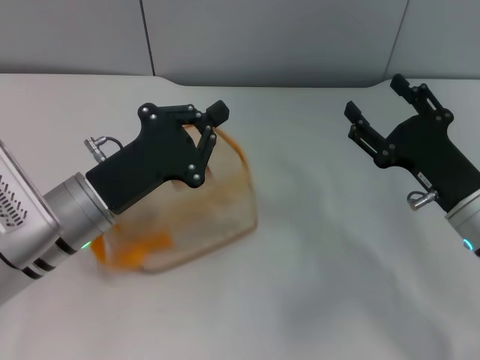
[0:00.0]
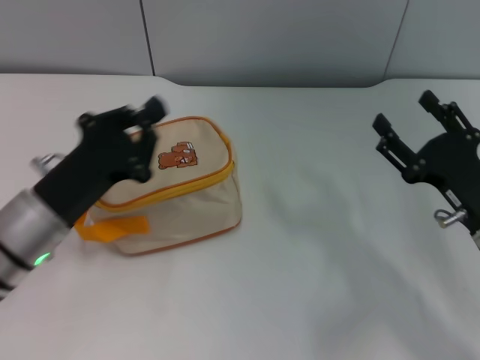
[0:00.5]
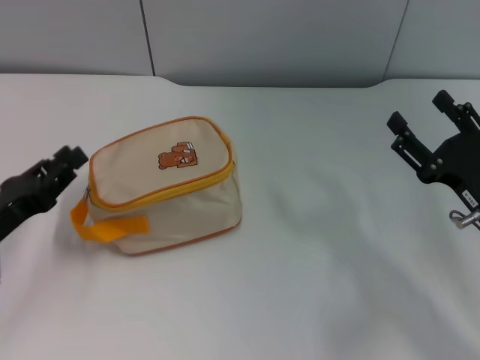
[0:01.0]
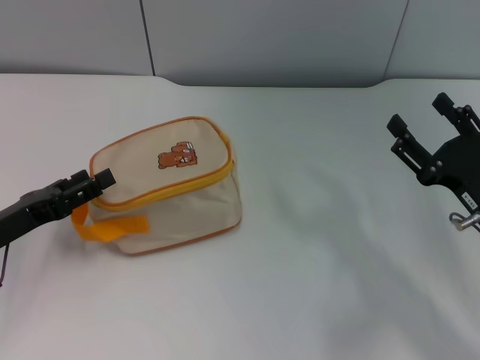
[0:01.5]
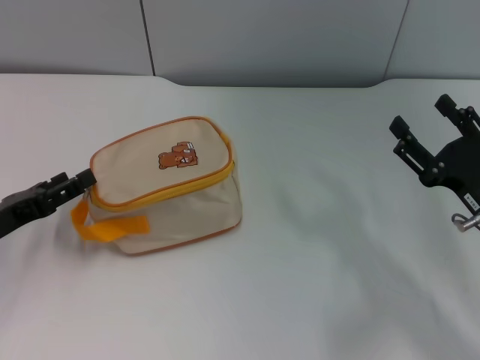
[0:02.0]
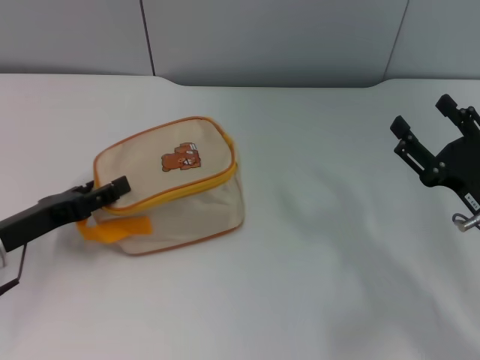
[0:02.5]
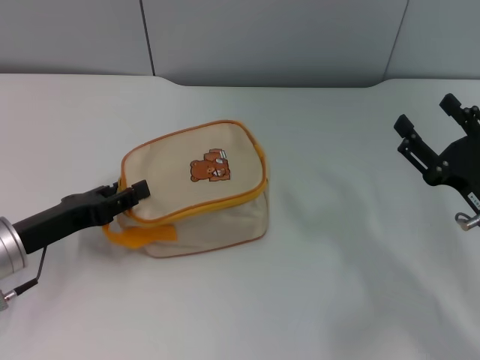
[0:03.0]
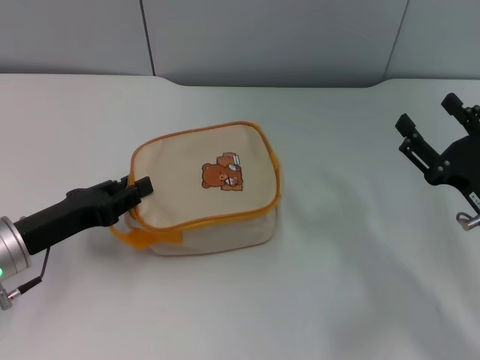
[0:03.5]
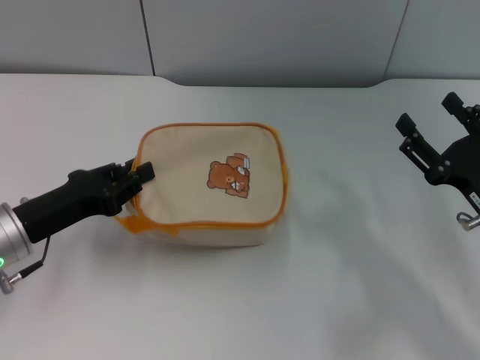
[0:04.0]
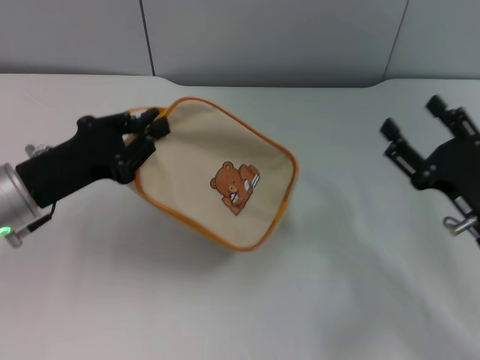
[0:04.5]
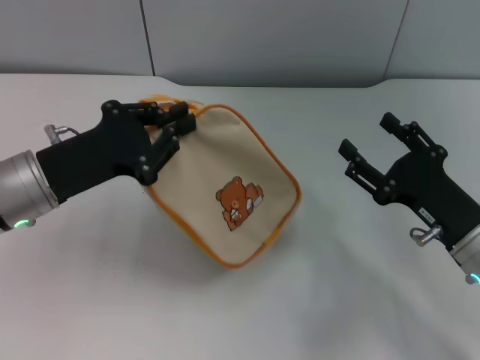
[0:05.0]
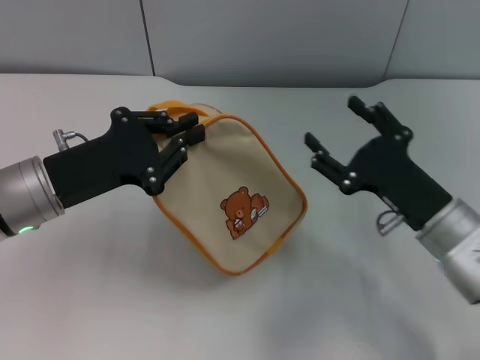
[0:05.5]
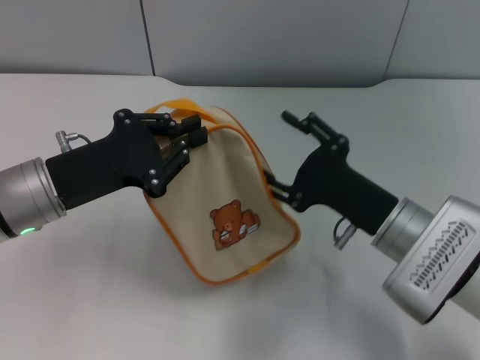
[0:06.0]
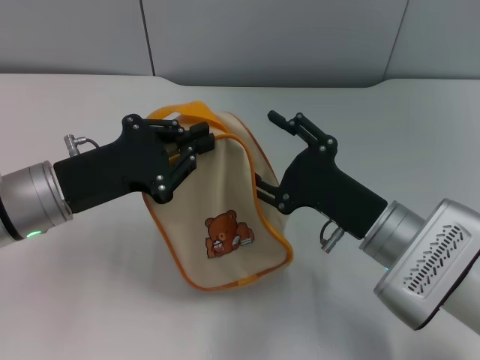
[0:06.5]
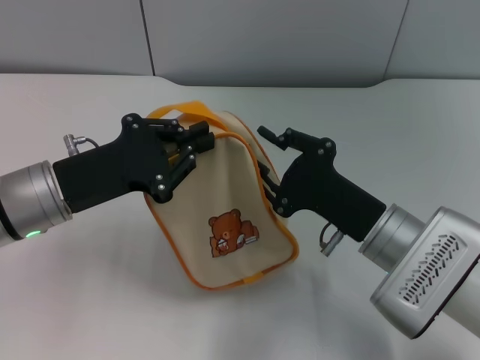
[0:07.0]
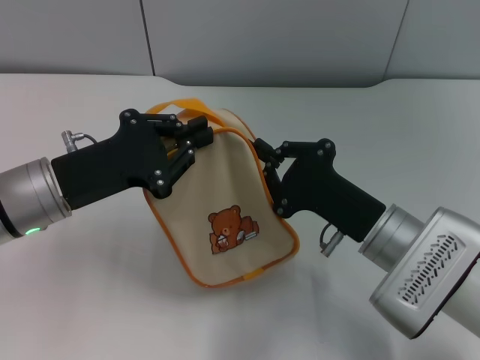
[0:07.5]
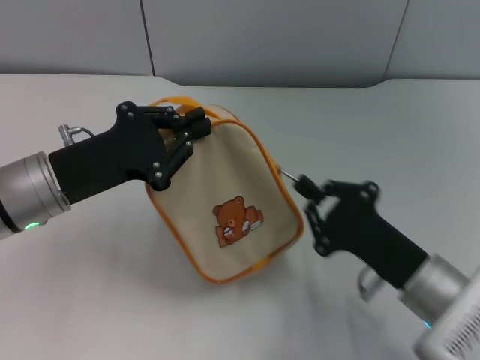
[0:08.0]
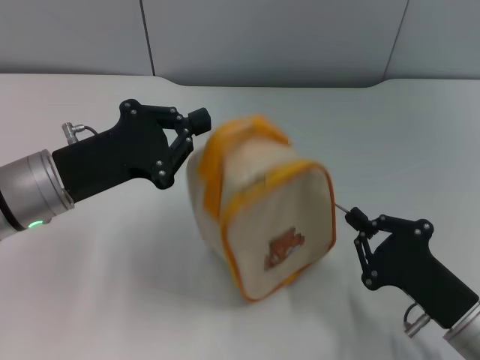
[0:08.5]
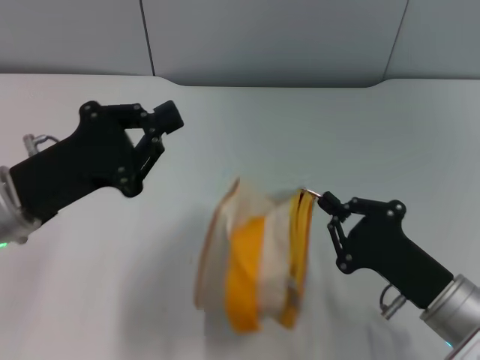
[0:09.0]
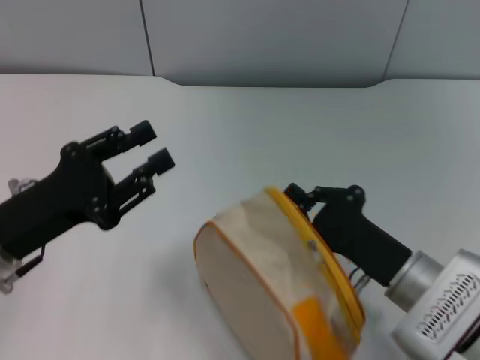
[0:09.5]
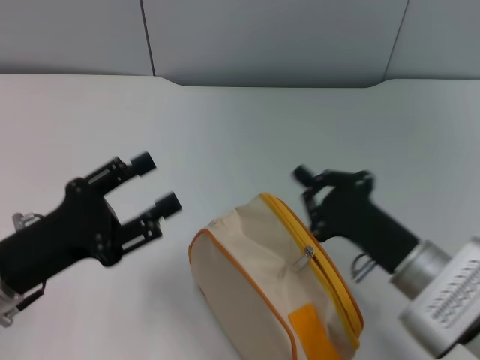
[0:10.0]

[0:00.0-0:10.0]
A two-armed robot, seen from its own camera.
Step, 0:00.0 to 0:04.5: Pick up the bag with left gripper.
Step, 0:05.0 to 0:09.0: Unzip the zipper of bag with right gripper.
0:00.0 to 0:02.0: The left gripper shifts approximately 15 cm to the left, and opens its fingers.
0:02.0 to 0:04.0: The left gripper heads to the right, covering roughly 5 cm, and closes up.
0:04.0 to 0:06.0: The left gripper moves some 5 cm. Meanwhile the right gripper is displaced to the left by roughly 10 cm.
0:06.0 to 0:08.0: The right gripper shifts about 5 cm backward, and closes.
0:08.0 to 0:10.0: The left gripper is displaced backward by some 10 cm, and opens up.

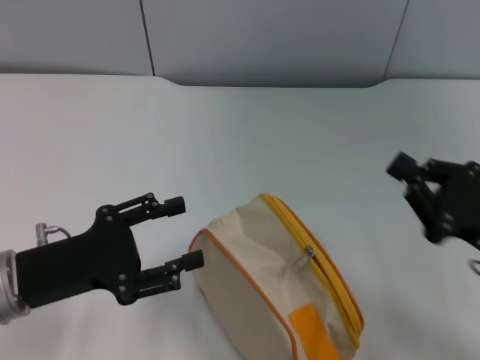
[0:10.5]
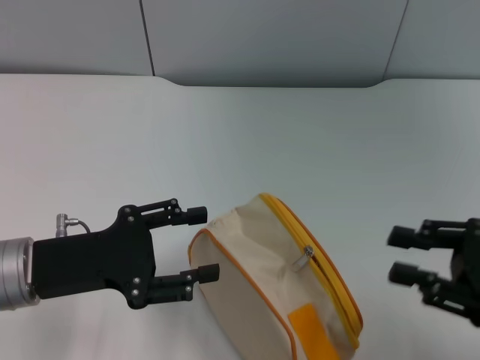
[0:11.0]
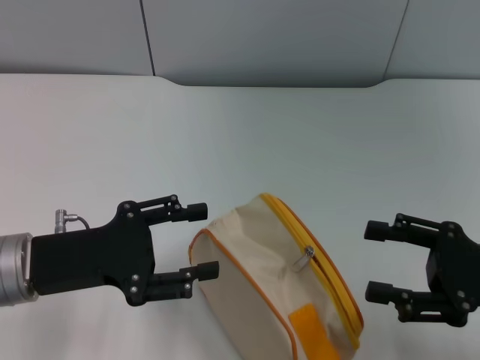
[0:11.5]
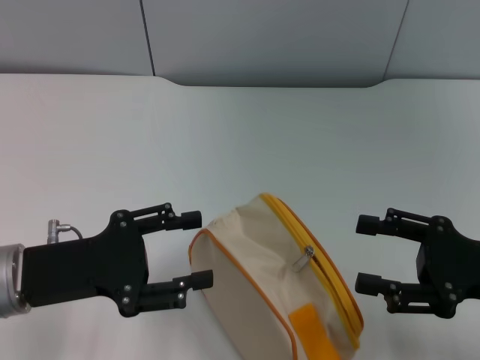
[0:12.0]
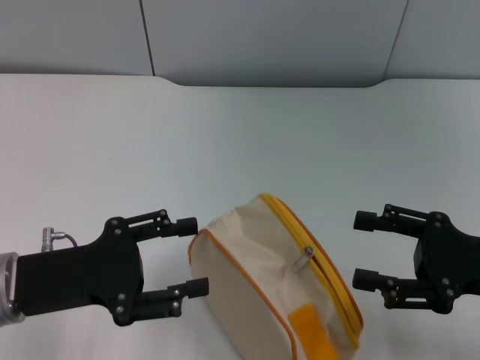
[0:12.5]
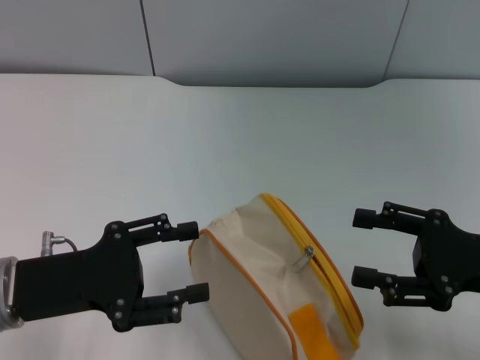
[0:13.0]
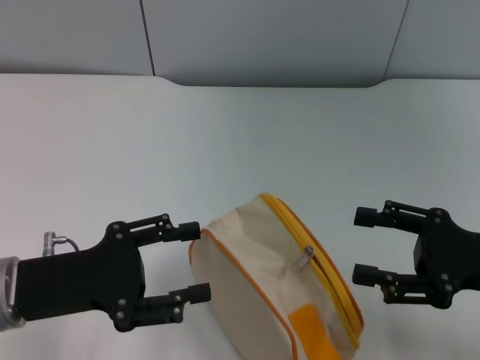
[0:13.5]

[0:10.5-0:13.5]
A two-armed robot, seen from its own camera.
0:10.5 to 0:12.0: The right gripper opens its fingers.
0:12.0 to 0:13.5: Both grippers stay put.
